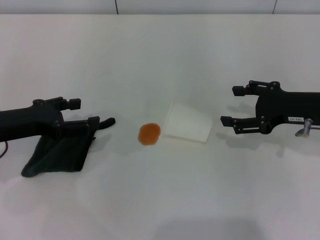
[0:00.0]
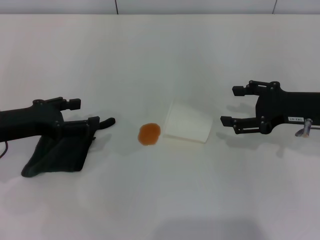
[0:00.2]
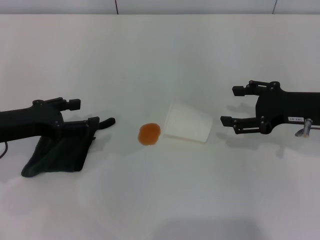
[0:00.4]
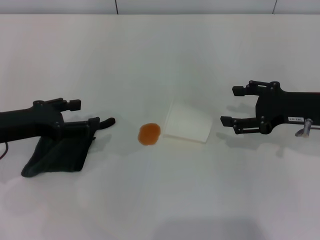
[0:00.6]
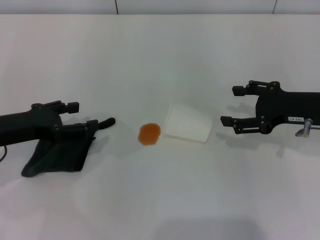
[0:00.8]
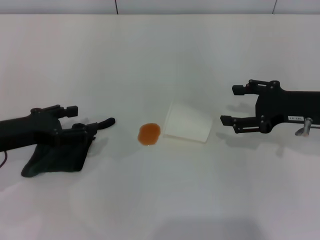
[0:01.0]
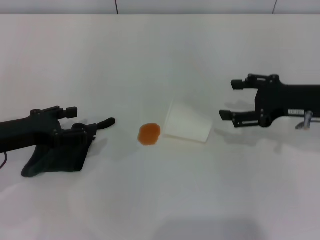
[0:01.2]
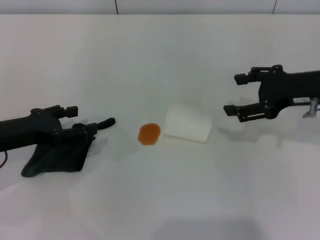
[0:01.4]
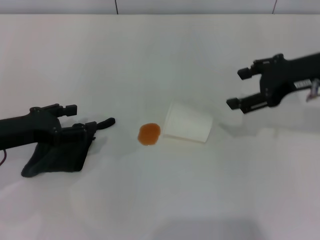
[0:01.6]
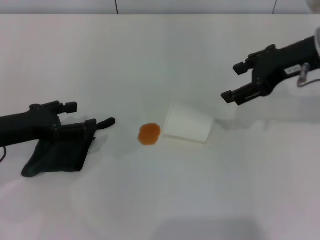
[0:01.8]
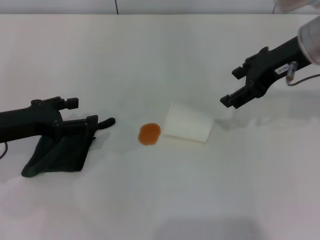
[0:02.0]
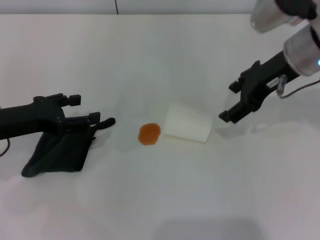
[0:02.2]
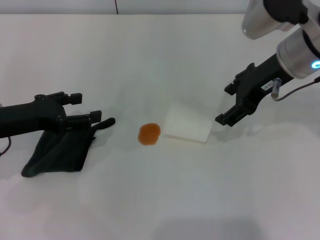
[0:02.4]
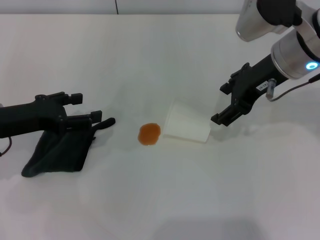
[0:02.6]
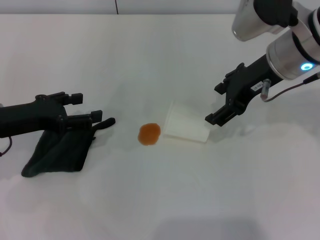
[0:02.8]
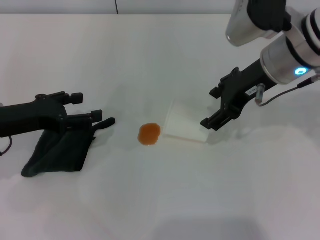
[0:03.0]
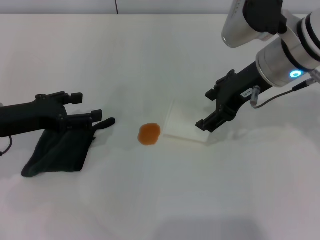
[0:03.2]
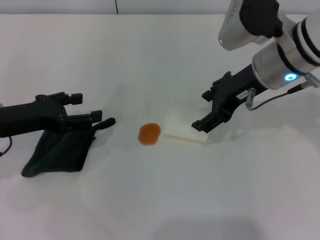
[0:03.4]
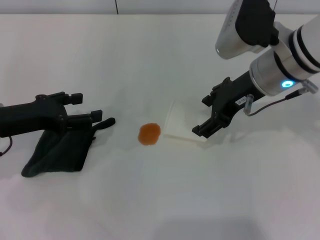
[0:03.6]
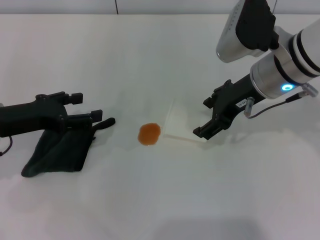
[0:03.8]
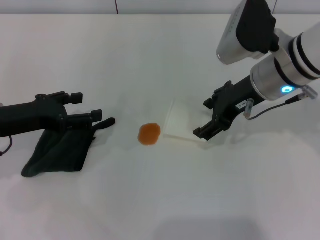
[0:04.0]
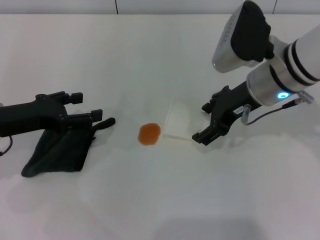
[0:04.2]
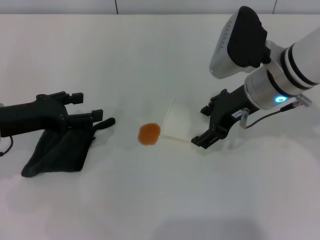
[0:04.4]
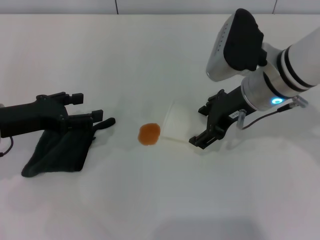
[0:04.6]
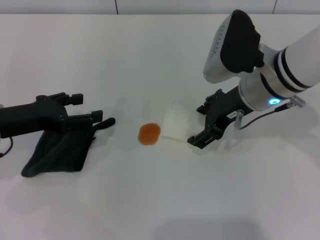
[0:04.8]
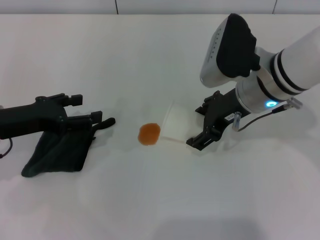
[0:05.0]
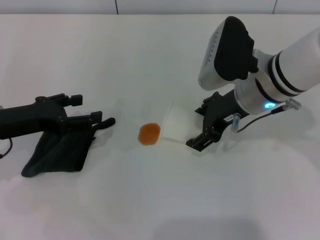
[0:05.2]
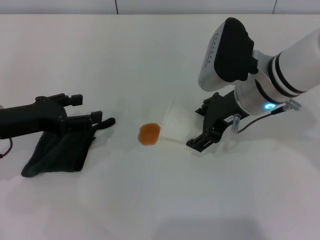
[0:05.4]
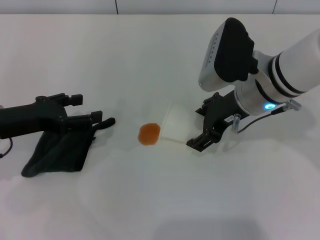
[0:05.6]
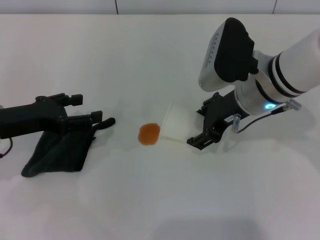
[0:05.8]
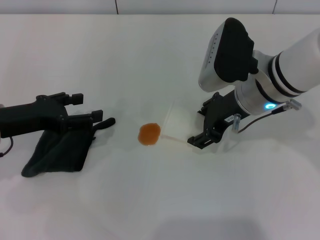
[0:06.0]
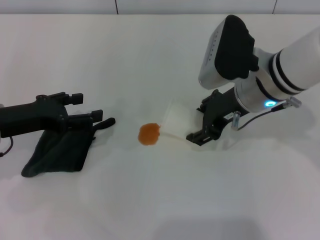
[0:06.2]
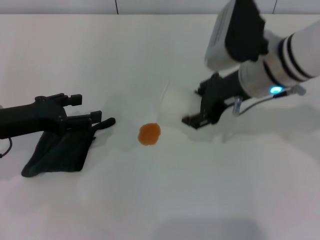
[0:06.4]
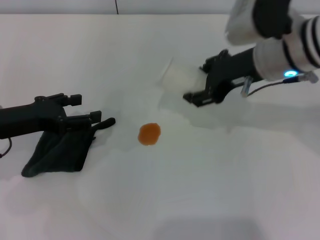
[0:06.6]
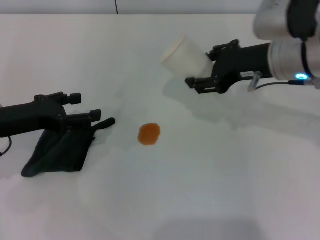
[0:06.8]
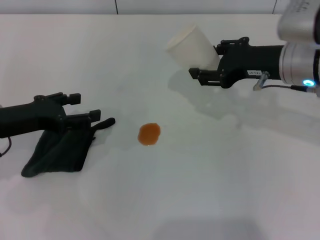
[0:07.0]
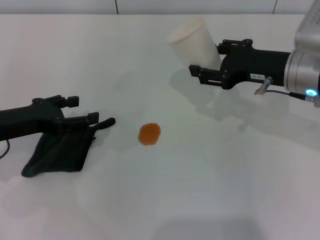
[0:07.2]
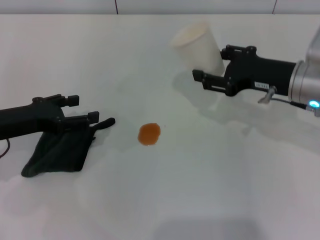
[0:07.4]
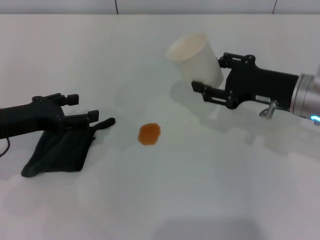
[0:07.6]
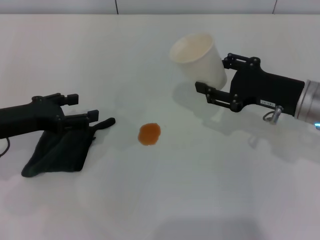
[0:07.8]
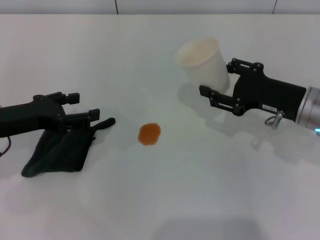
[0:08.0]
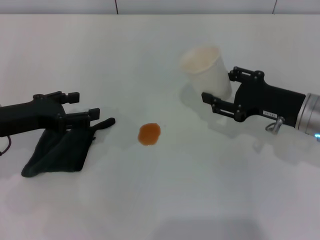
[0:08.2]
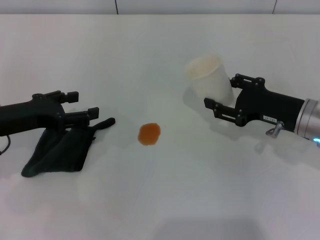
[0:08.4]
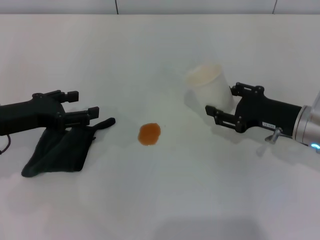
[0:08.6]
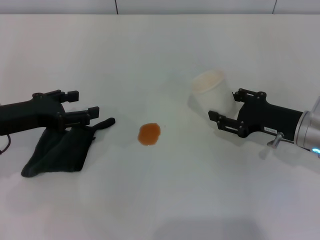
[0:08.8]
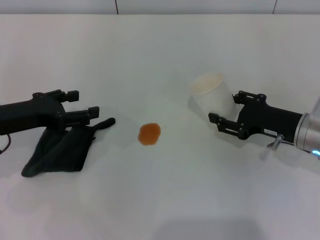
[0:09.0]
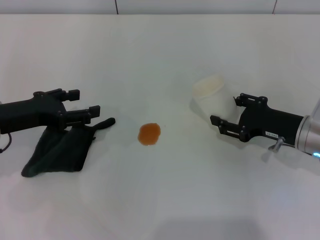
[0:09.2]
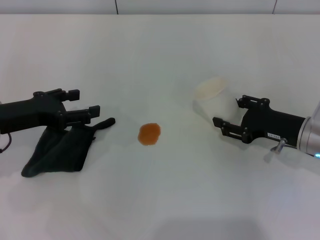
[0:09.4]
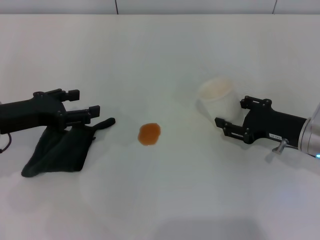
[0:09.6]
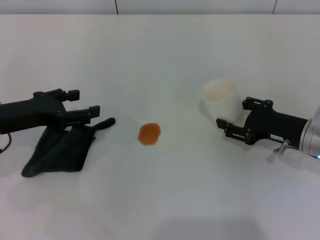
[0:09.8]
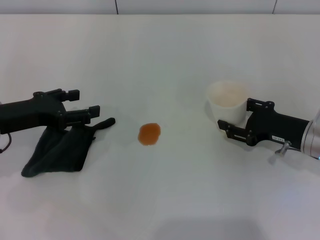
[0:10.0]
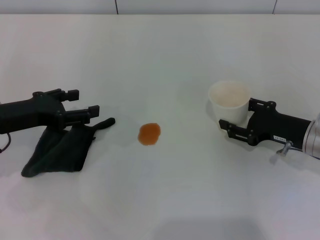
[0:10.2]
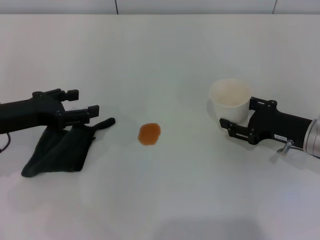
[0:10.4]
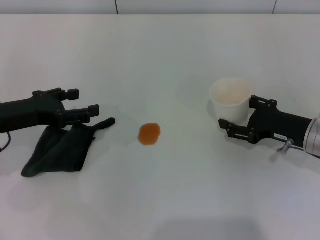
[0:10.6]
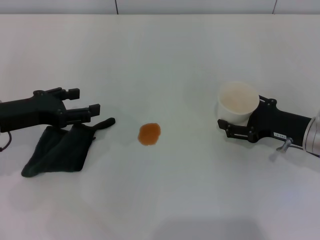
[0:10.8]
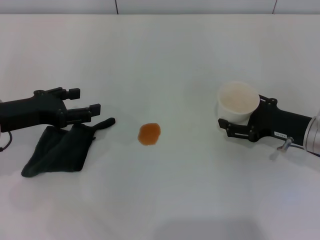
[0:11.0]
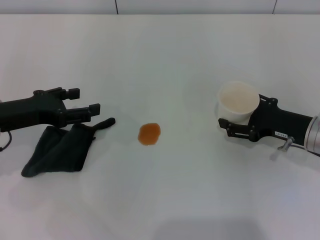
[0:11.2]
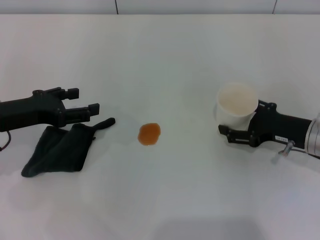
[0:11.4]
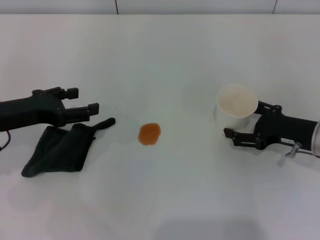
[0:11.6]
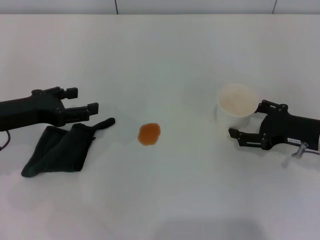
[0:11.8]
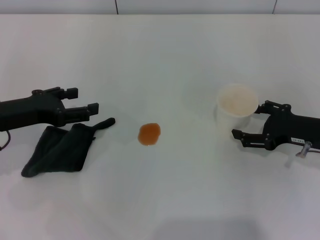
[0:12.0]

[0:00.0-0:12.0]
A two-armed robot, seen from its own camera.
Step, 0:00.0 to 0:05.8: Grasp the paper cup with the right gripper.
0:00.0 to 0:01.6: The right gripper is displaced upward by approximately 10 cm.
0:01.6 to 0:03.0: The right gripper moves to the left, roughly 10 cm.
0:03.0 to 0:04.4: The grippers stay close to where they were, moving slightly.
0:04.4 to 0:06.0: The right gripper closes up.
0:06.0 to 0:07.6: The right gripper moves to the right, some 10 cm, and closes its fingers.
0:07.6 to 0:09.0: The right gripper shifts about 5 cm downward.
0:09.0 to 0:10.4: The grippers stay close to where they were, moving slightly.
0:10.4 to 0:12.0: The right gripper opens its fingers.

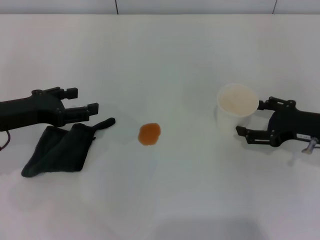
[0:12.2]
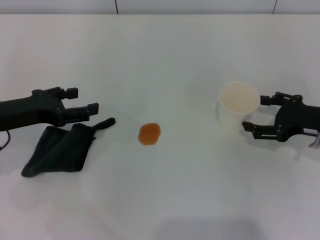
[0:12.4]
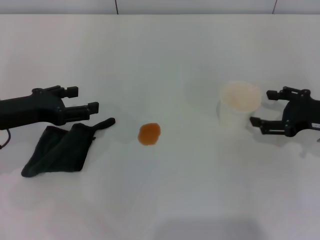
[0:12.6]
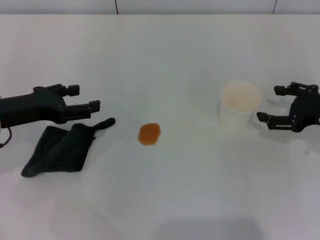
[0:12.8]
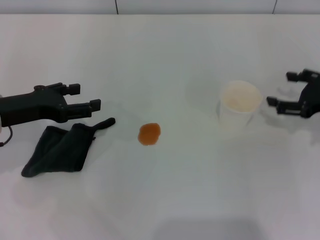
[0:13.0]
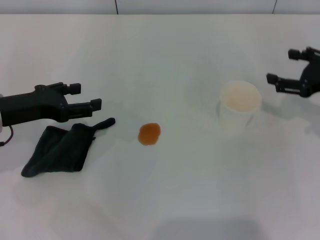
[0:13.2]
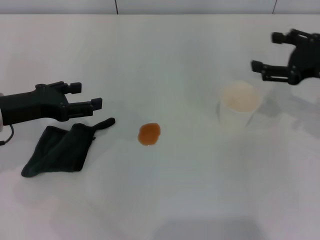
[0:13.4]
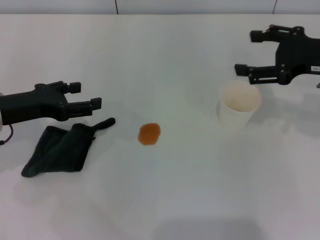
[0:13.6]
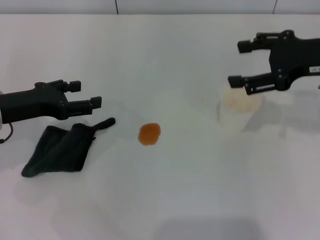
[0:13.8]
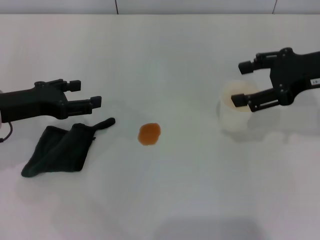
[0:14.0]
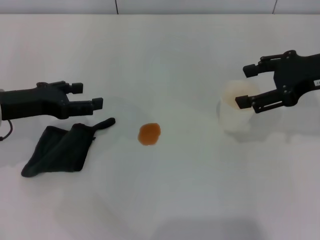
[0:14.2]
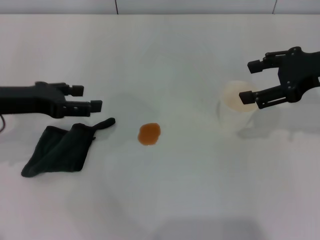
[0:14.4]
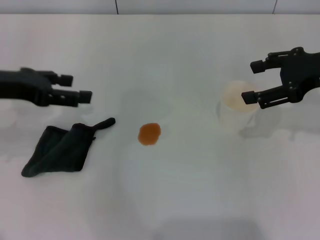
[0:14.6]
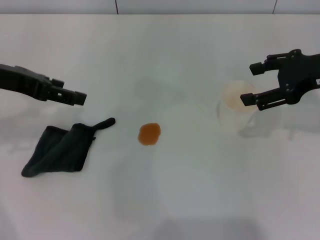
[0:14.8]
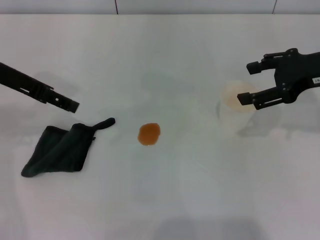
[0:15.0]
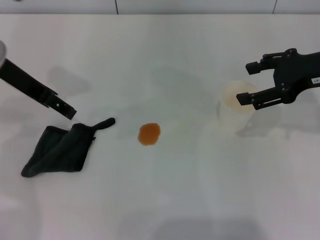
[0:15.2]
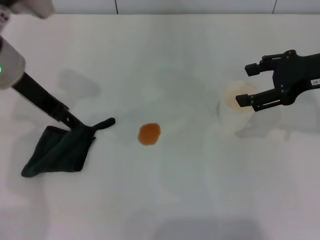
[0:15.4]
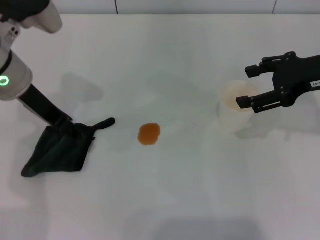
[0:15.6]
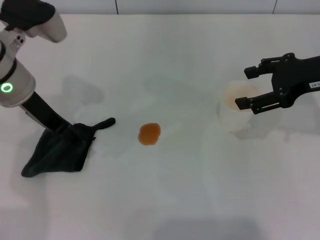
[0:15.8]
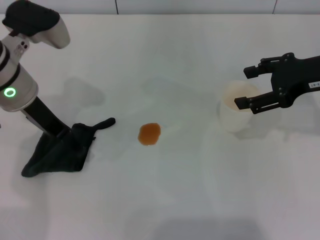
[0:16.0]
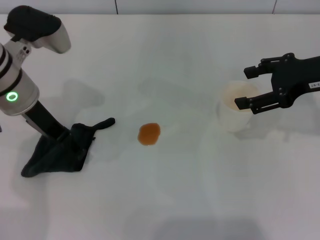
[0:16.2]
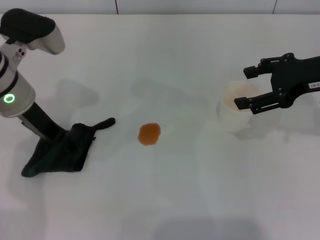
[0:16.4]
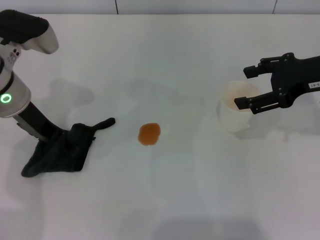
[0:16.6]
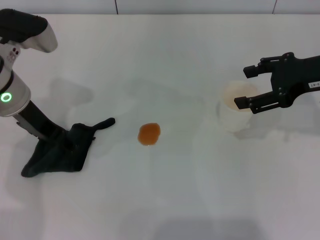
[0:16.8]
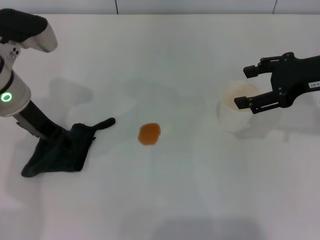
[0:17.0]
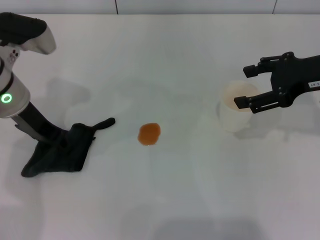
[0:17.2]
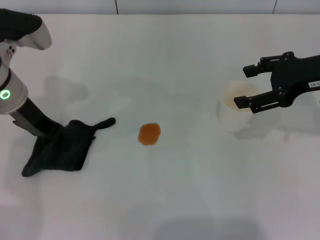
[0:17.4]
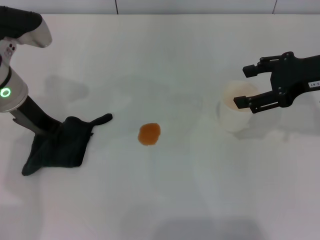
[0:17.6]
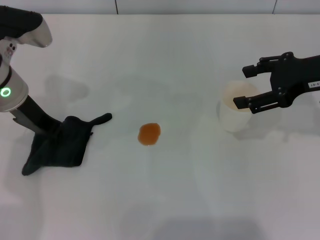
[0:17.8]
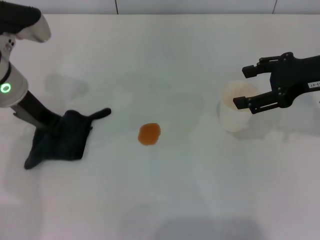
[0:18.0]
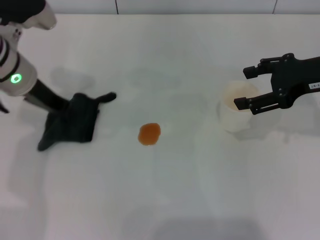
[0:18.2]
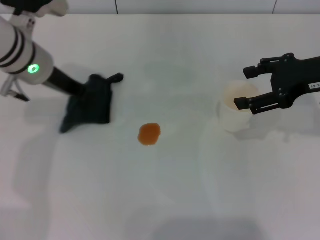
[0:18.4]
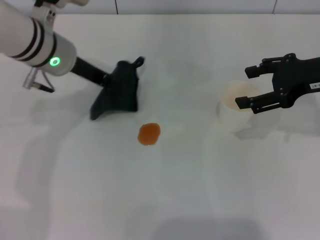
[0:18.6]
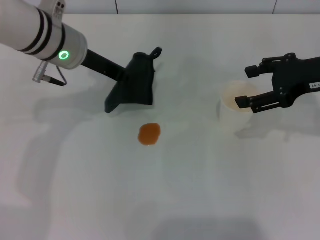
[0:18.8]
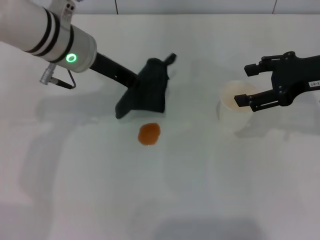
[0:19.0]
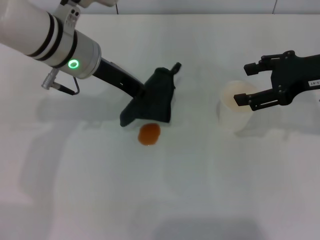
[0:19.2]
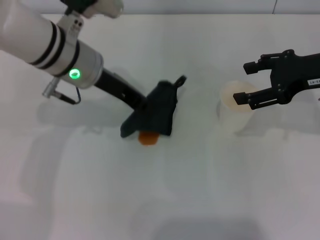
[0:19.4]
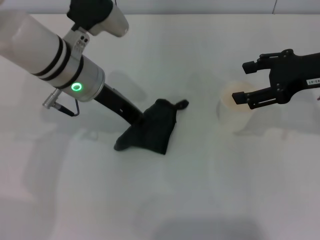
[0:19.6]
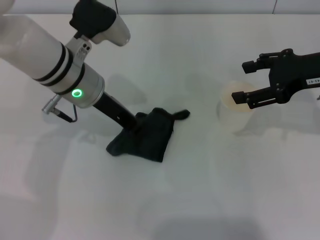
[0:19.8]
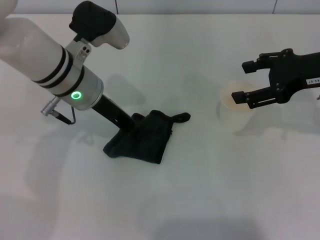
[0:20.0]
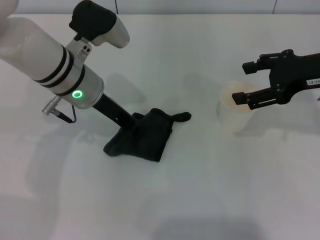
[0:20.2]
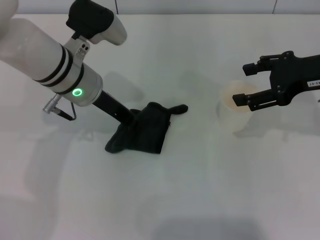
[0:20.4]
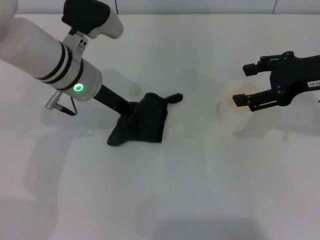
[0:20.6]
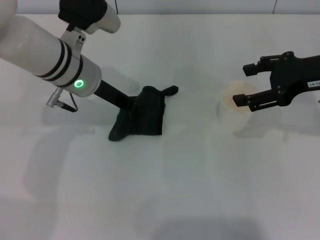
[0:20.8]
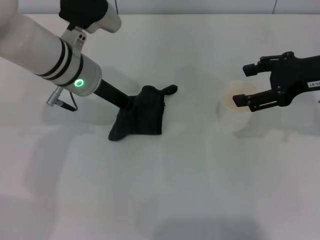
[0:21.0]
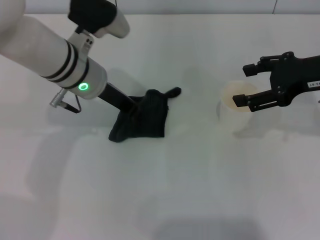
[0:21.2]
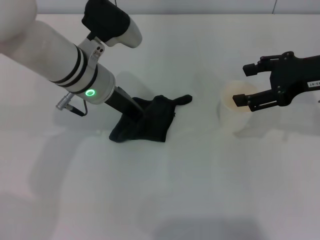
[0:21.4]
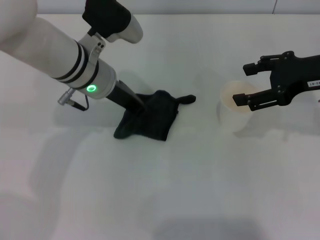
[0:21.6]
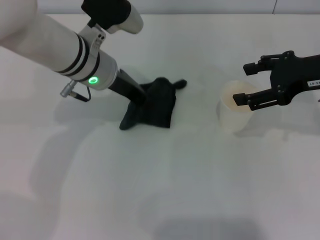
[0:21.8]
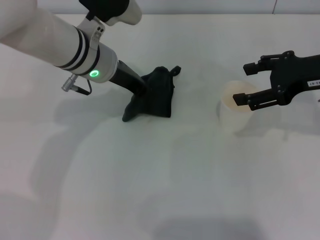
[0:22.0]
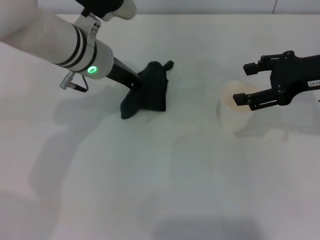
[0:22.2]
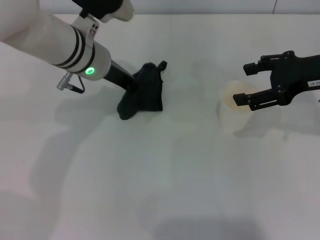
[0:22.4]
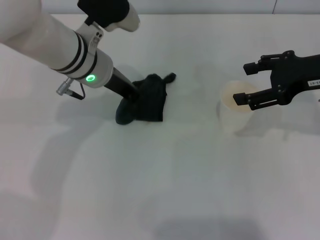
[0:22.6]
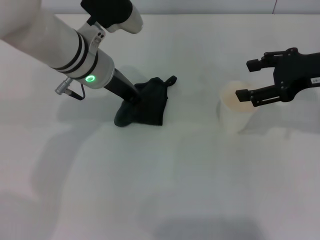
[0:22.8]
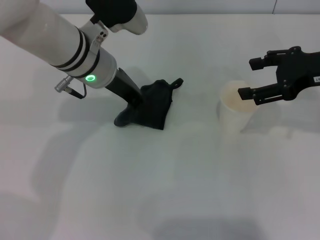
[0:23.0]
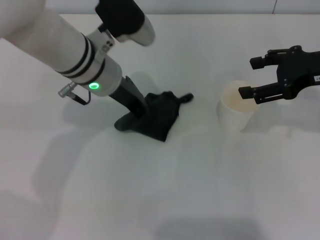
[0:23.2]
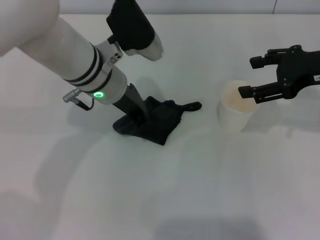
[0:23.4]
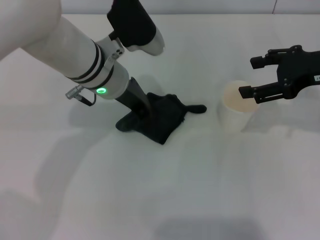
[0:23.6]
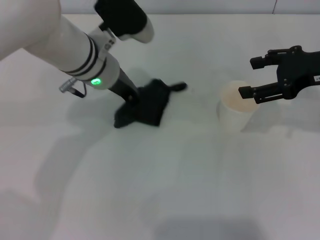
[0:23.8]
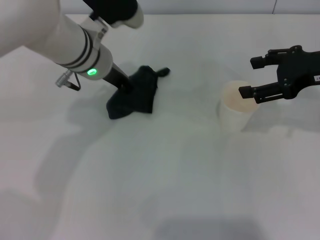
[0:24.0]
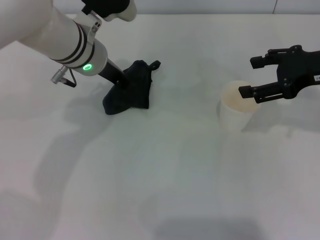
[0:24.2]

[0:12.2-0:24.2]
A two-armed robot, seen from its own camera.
Step, 0:13.0 to 0:17.8: Grasp the rag with the left gripper.
0:12.2 to 0:13.8: The right gripper heads upward, covering about 15 cm.
0:13.8 to 0:15.2: The left gripper travels upward, forward and to the right by some 15 cm.
0:15.2 to 0:16.6: The left gripper is displaced downward by roughly 5 cm.
0:16.6 to 0:18.2: The left gripper closes its fingers.
0:18.2 to 0:19.8: The left gripper is displaced to the right by some 10 cm.
0:19.8 to 0:22.6: The grippers stay close to where they were, moving slightly.
0:22.6 to 0:24.2: There are only small adjustments of the grippers.
